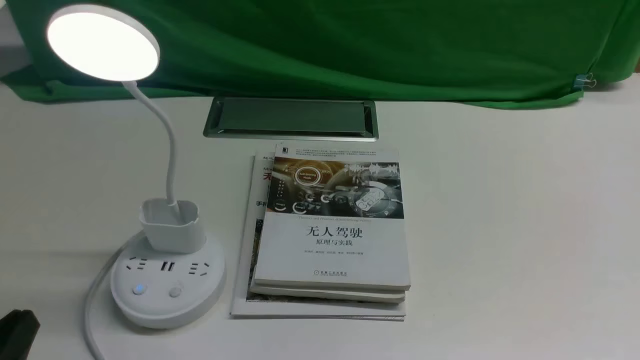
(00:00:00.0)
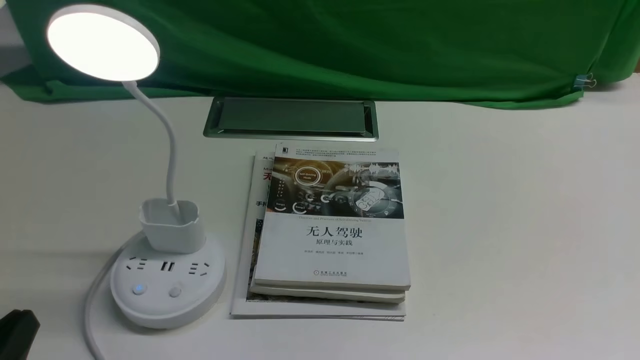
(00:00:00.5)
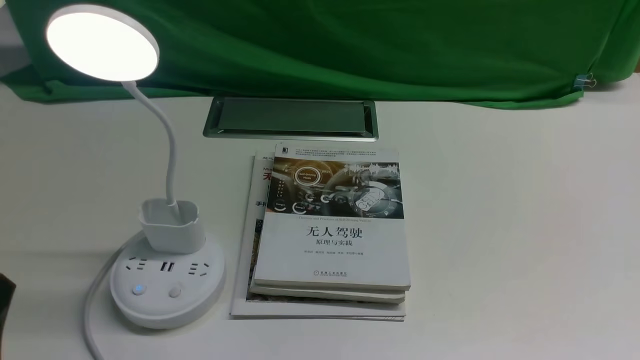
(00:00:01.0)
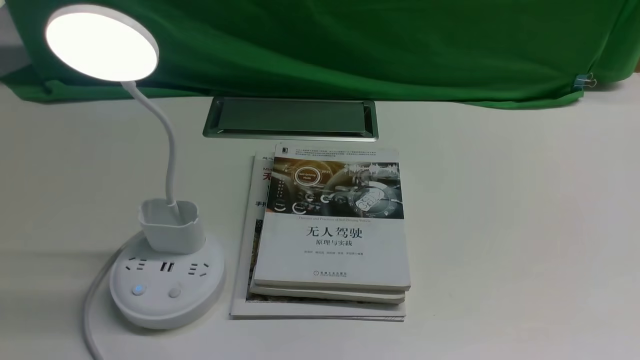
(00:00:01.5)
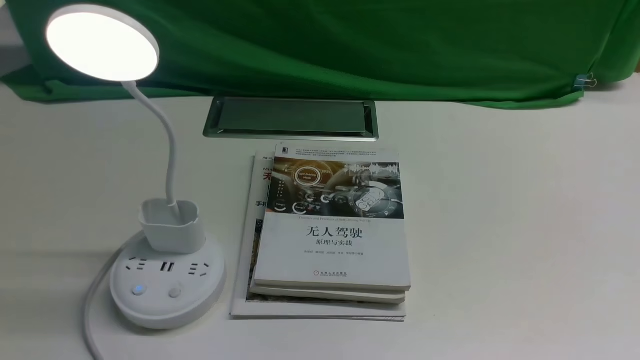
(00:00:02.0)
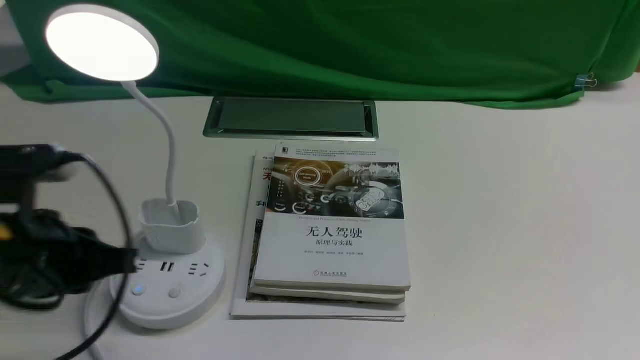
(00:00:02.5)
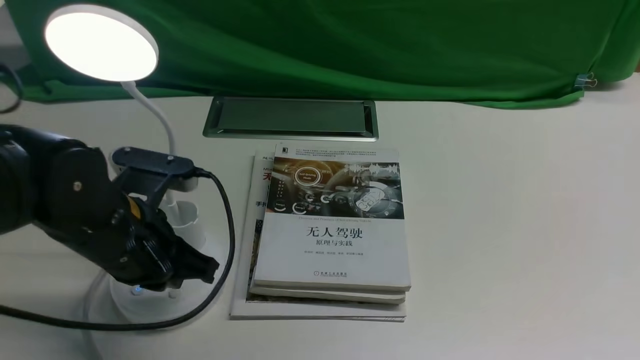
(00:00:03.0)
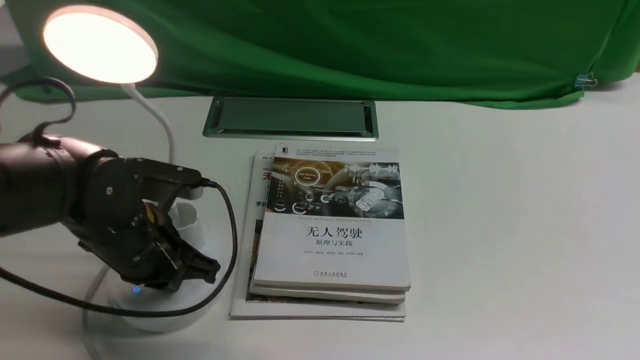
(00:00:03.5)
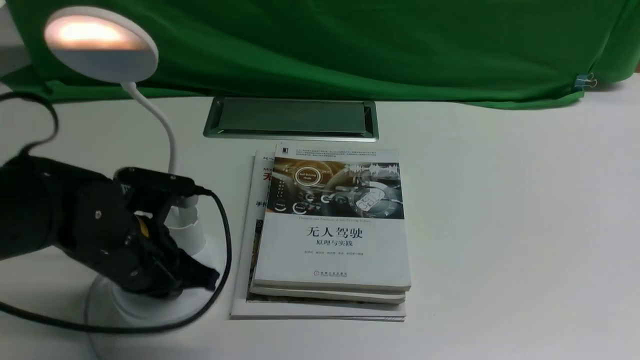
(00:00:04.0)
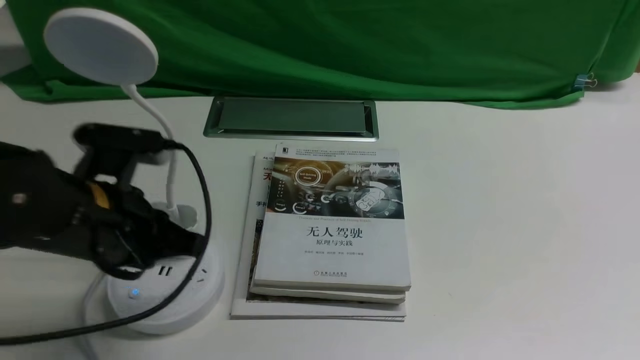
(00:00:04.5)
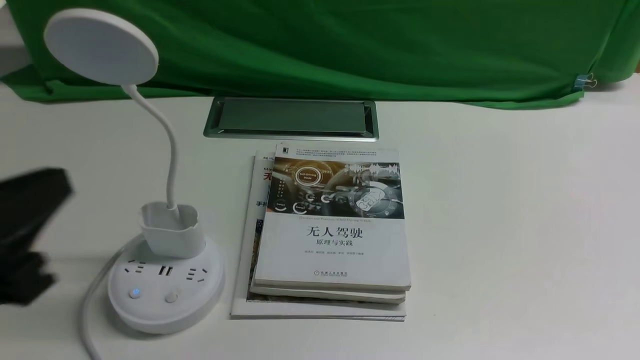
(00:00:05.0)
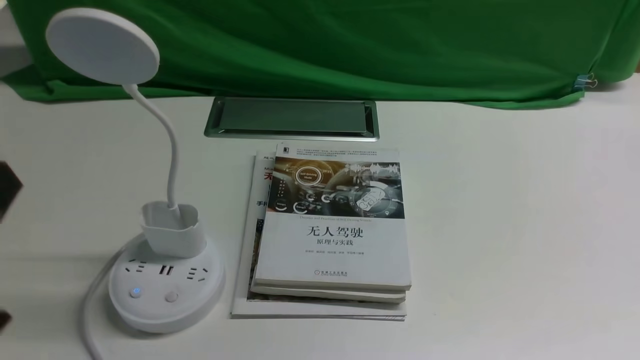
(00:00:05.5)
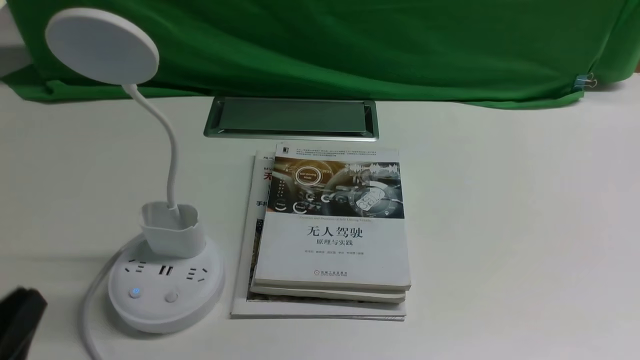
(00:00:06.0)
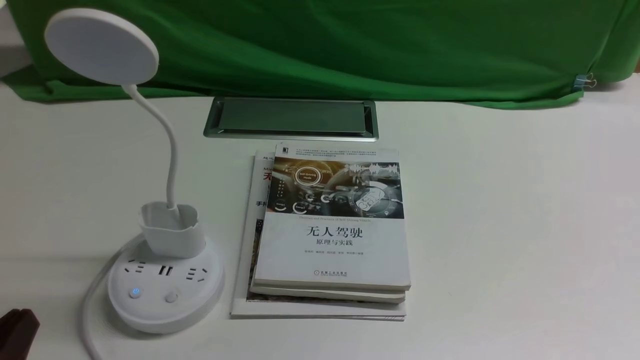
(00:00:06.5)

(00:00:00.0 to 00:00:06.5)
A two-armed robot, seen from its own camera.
Task of the whole recording: turn off the desk lamp on the white desktop by hand.
Step, 00:00:00.0 - 00:00:04.0: use the left arm to press the button switch on the lamp holder.
00:00:02.0 - 00:00:04.5: The left gripper heads forward, downward and to the right, covering roughly 20 cm.
00:00:04.5 - 00:00:06.5: The left gripper goes roughly 20 cm backward.
